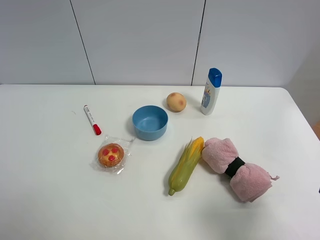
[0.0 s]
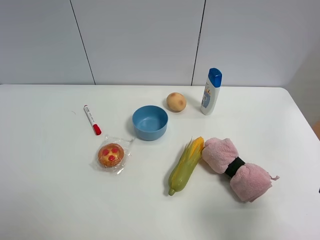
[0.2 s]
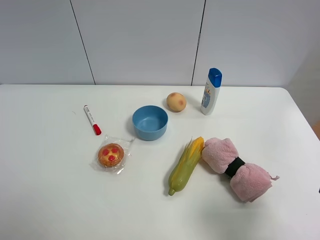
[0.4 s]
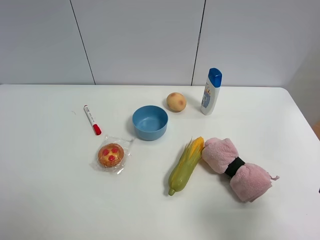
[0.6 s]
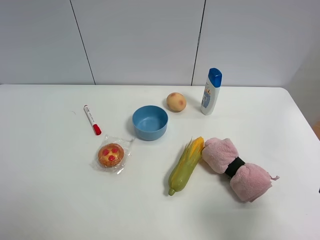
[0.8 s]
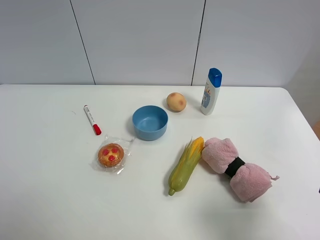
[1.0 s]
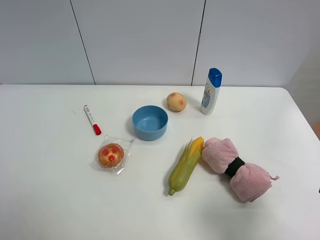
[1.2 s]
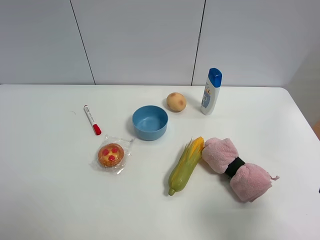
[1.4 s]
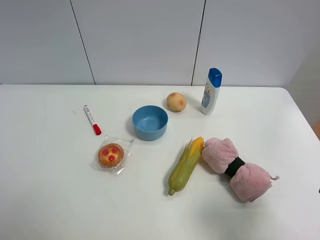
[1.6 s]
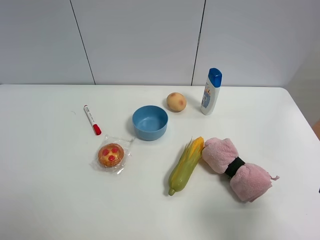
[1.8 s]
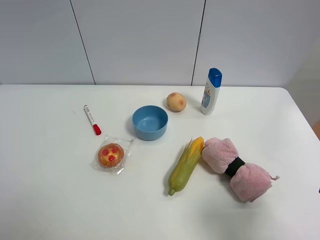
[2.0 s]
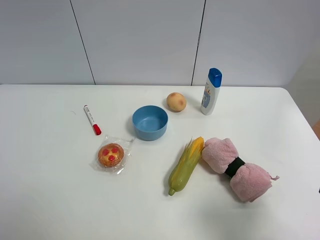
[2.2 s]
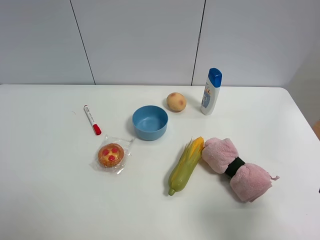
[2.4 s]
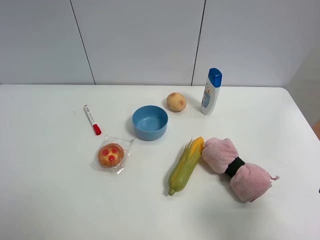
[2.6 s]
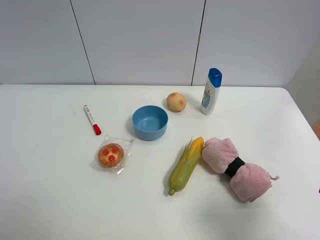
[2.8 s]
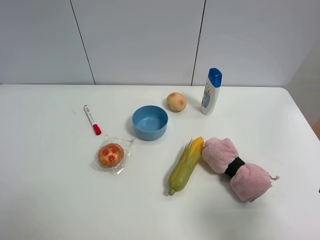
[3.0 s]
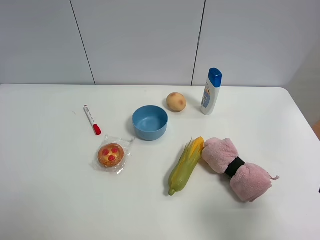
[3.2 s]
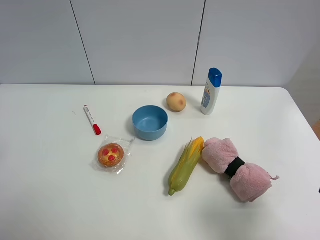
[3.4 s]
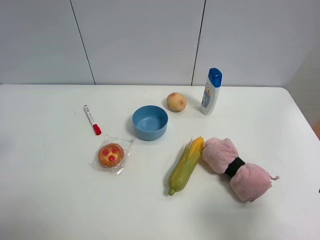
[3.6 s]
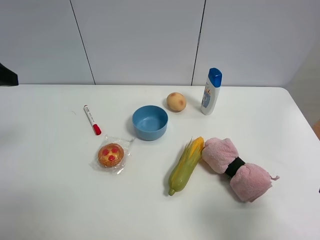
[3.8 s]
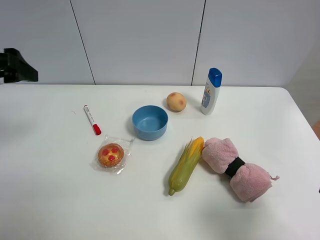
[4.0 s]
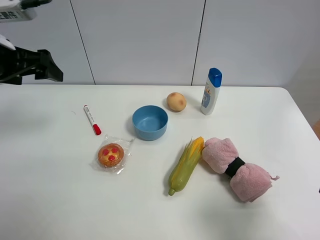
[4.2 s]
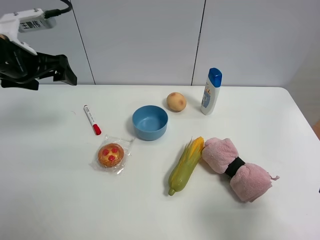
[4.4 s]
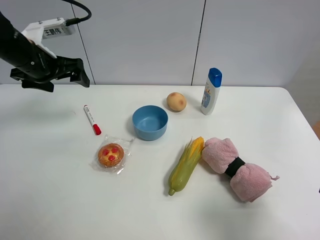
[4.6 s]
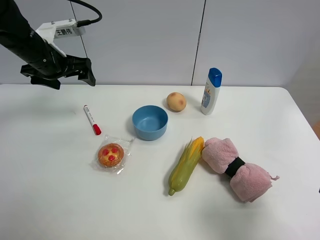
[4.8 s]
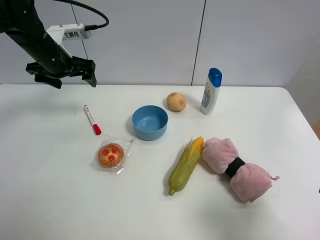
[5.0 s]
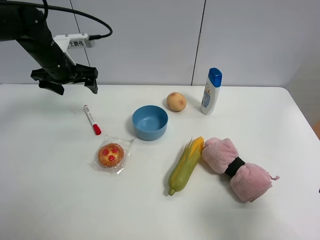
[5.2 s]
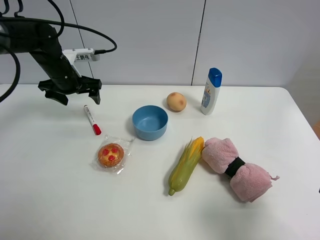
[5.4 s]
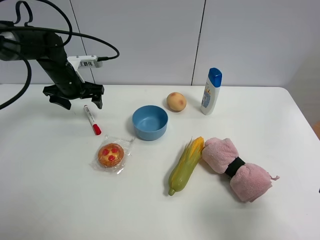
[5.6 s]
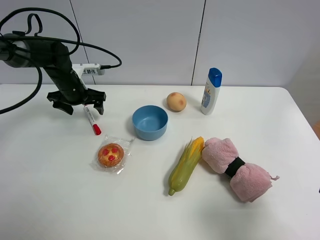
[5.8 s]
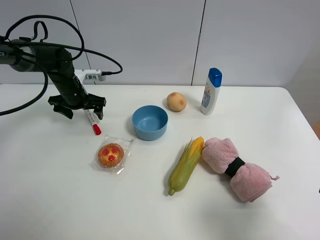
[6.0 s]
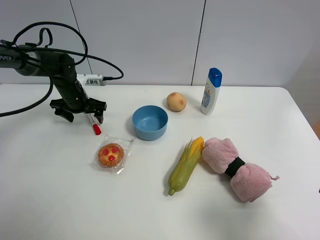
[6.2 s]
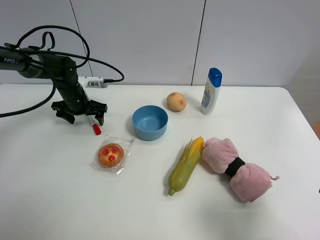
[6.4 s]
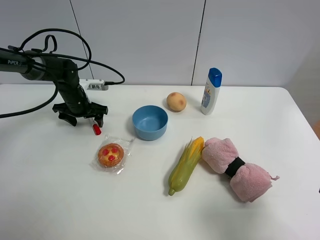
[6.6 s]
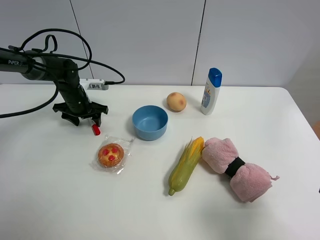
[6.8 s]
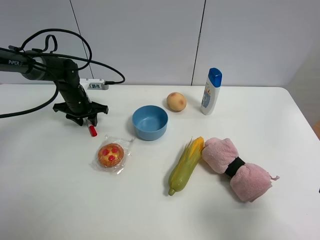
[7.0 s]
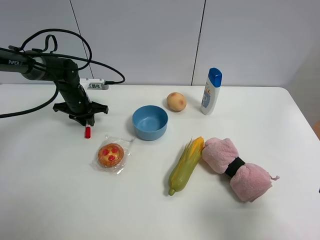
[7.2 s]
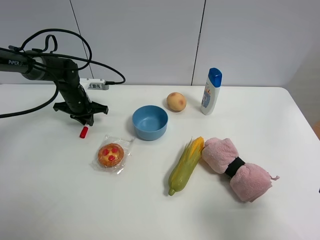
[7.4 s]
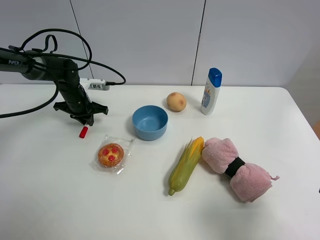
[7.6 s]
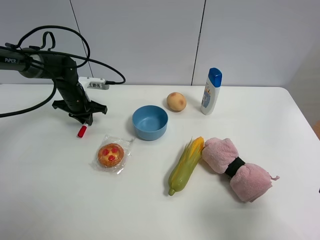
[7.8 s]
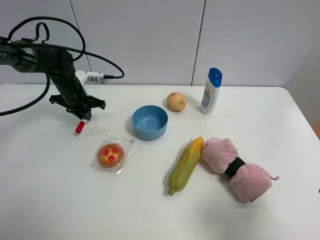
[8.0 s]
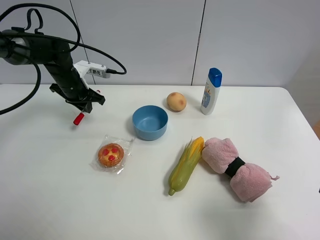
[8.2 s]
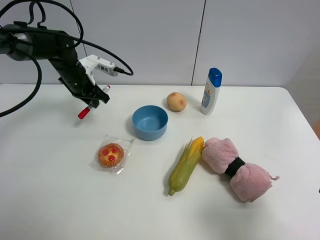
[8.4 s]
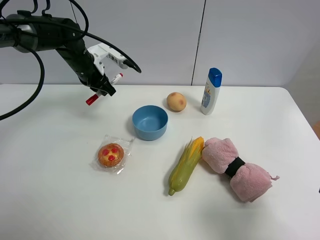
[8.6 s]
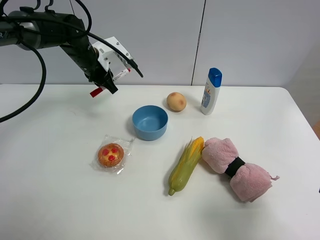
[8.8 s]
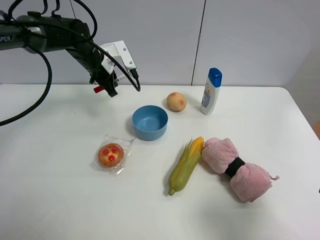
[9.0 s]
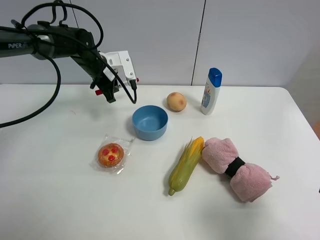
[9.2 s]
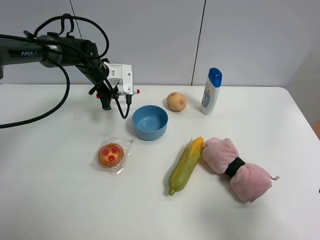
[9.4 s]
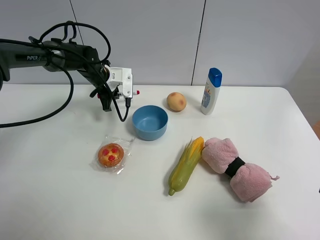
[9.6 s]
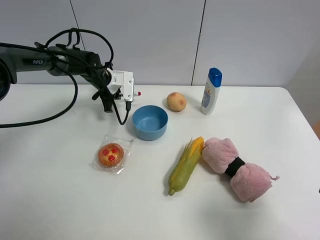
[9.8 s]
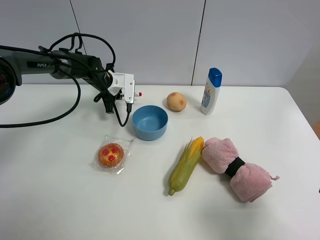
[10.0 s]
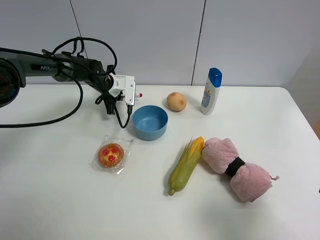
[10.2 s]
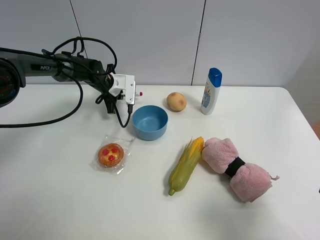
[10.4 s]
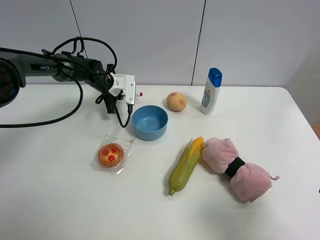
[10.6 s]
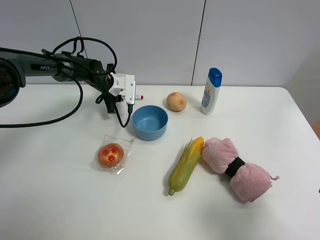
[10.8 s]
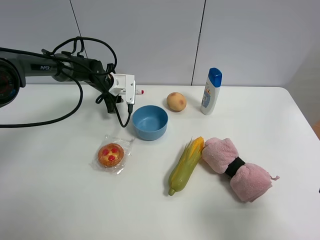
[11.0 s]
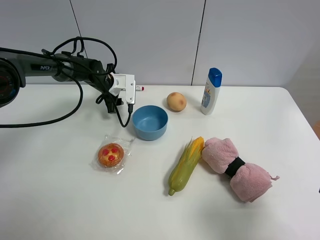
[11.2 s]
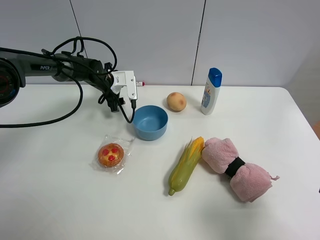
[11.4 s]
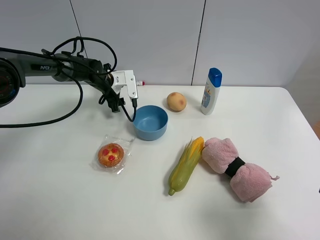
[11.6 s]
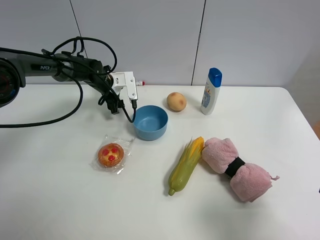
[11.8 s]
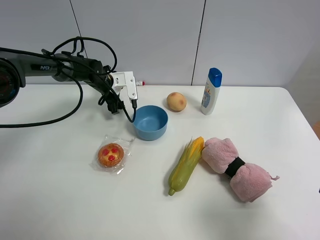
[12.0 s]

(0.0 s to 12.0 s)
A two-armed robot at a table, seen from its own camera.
Task of the whole recording: the gripper move the object.
Step, 0.0 s - 7.4 s: Grasp the red marker pen with the left gripper.
Step, 7.6 s - 10.6 s: Place the red marker pen on the table with the left gripper.
0.0 s - 1.6 s: Both grippers stay put.
3.0 s - 4.4 s: The left gripper travels forward by roughly 30 cm.
4.4 s - 6.0 s: The left gripper goes about 20 cm downward and forward.
6.0 s - 7.6 s: The left gripper closes its fingers.
7.6 s - 9.0 s: The left gripper moves upward and to the right, about 15 cm.
9.0 s - 10.4 s: The left gripper moves downward, approximately 10 cm.
10.4 s - 12.0 s: The left gripper opens its fingers.

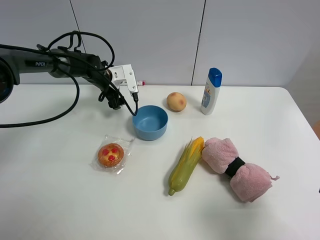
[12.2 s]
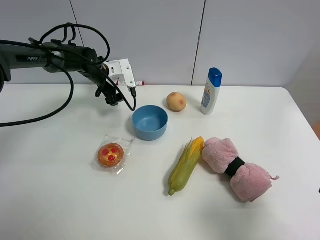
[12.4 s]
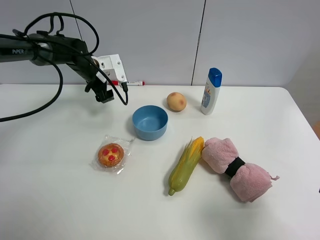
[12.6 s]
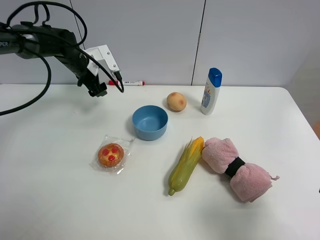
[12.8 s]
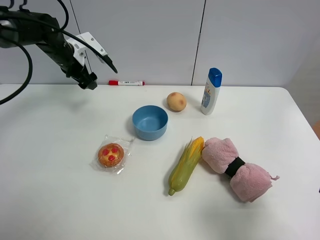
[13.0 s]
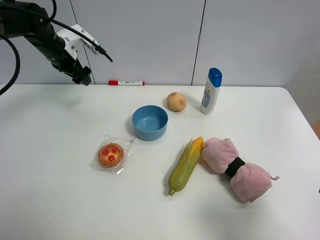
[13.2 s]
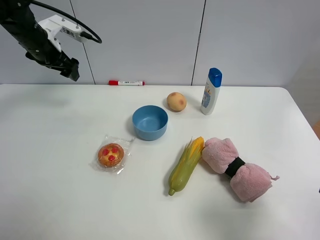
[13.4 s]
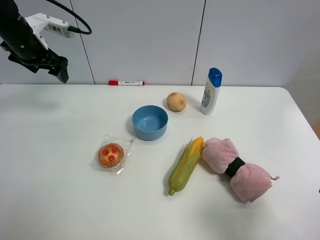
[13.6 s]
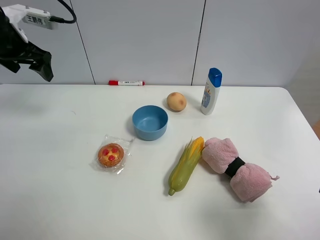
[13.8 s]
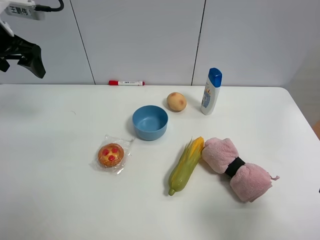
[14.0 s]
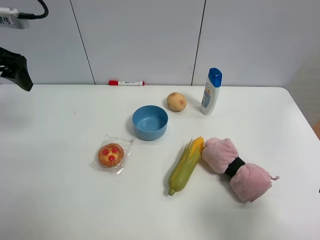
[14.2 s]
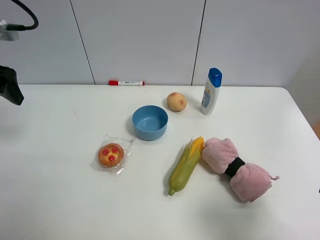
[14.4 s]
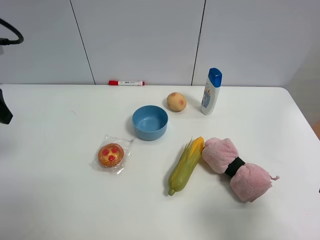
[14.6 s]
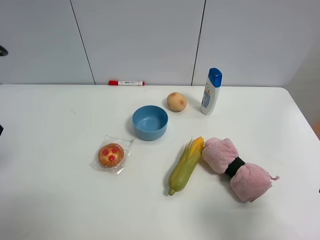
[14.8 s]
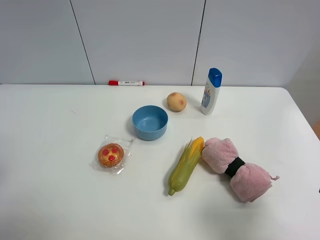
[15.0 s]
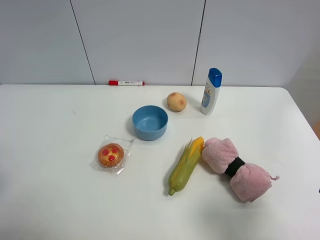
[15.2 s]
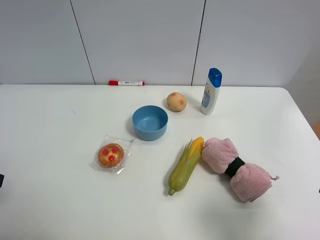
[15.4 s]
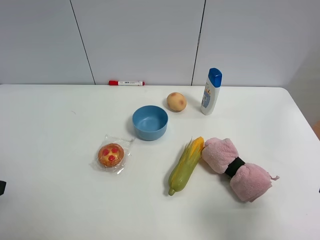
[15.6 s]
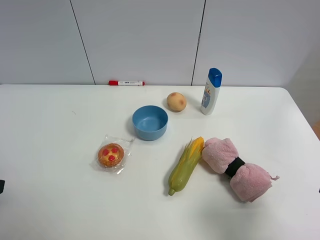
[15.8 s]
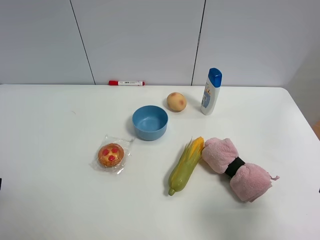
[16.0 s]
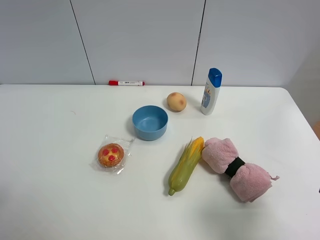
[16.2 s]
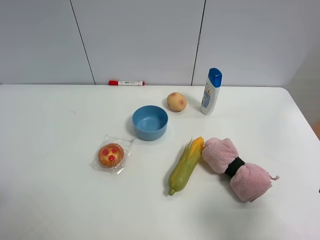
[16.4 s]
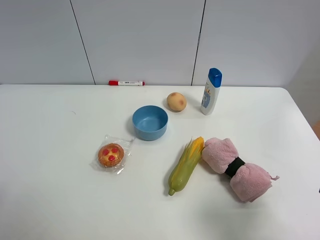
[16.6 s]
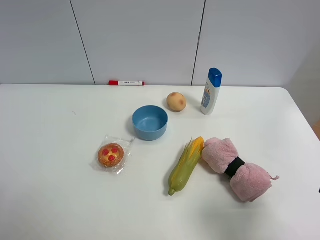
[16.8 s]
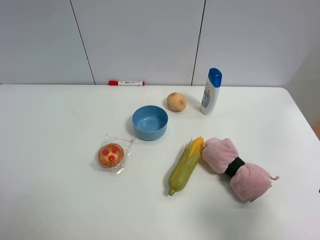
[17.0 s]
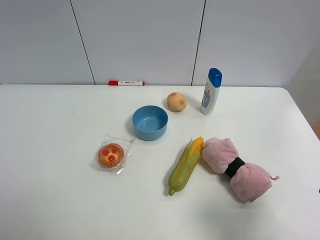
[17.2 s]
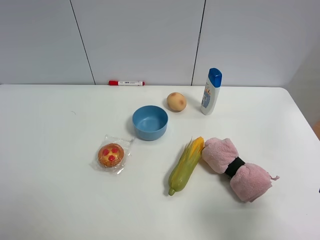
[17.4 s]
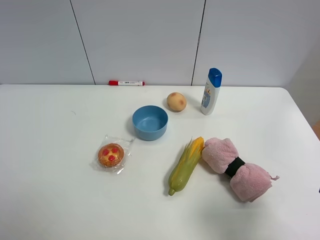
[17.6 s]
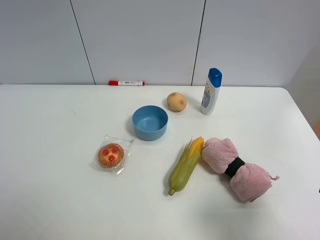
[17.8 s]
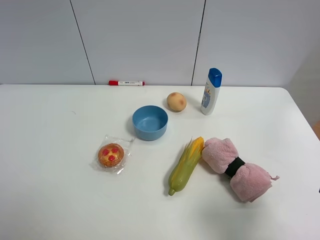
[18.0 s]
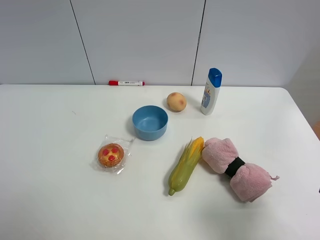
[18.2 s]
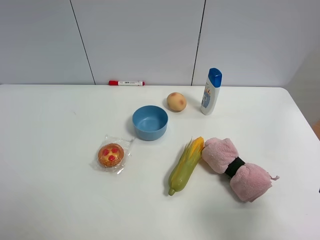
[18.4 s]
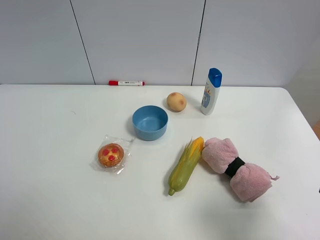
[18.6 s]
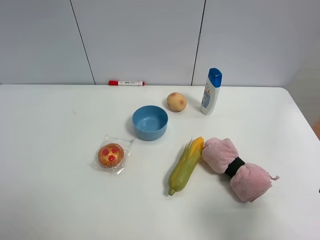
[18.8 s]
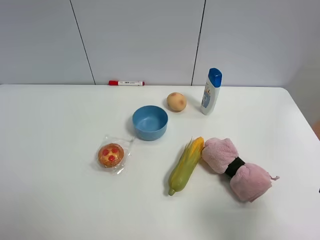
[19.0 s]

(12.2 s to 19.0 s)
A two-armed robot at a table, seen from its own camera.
Task of the whole recording: the gripper move the object.
12.2 s - 13.6 s: The left gripper moves upward, to the left and backward, about 20 cm.
13.6 s - 15.0 s: The left gripper moves backward, approximately 30 cm.
17.6 s - 19.0 s: Both grippers stay put.

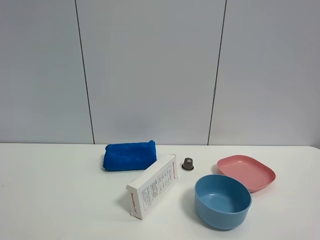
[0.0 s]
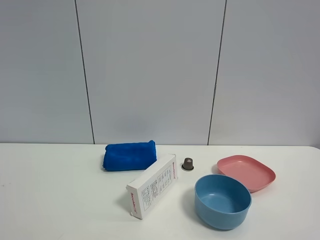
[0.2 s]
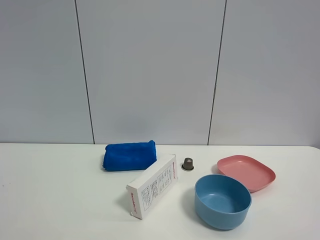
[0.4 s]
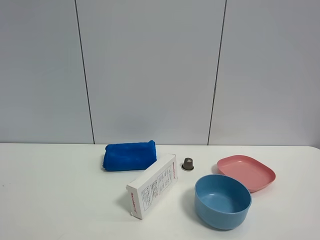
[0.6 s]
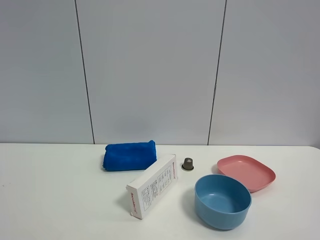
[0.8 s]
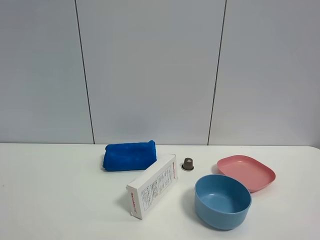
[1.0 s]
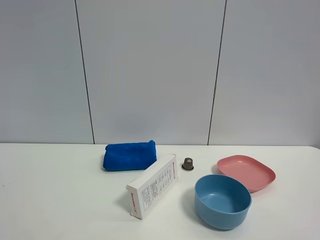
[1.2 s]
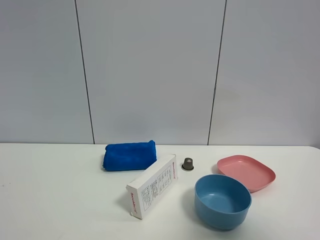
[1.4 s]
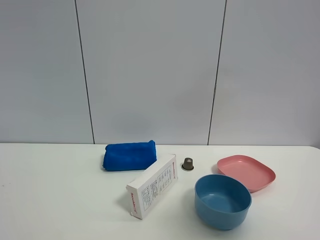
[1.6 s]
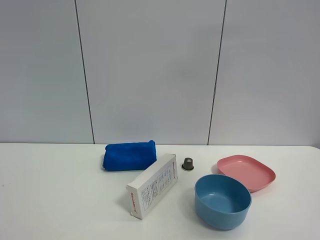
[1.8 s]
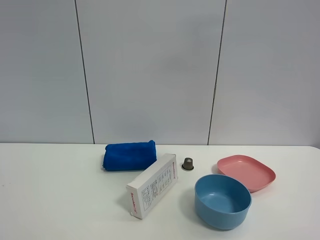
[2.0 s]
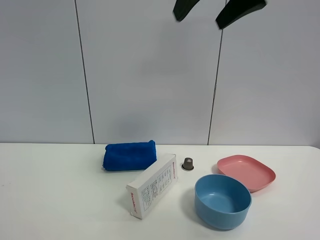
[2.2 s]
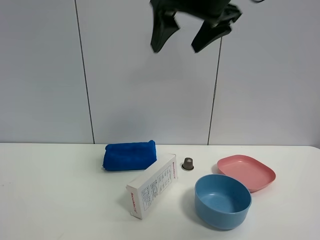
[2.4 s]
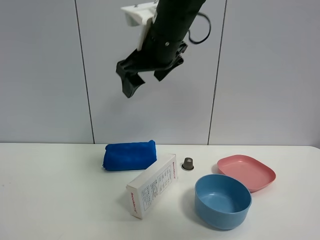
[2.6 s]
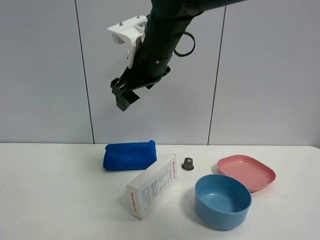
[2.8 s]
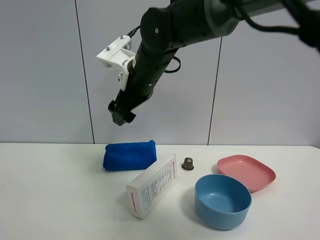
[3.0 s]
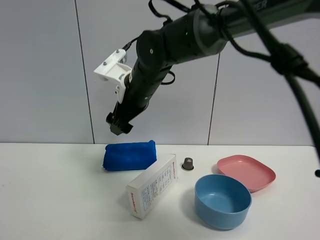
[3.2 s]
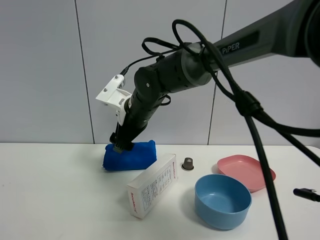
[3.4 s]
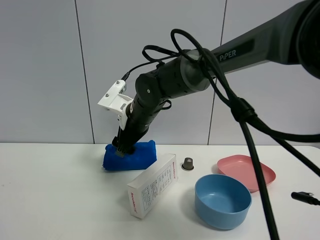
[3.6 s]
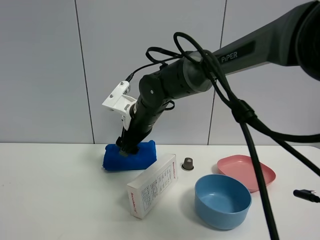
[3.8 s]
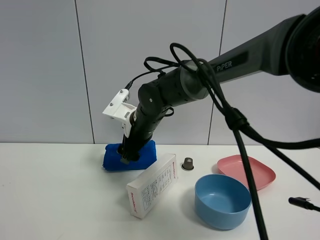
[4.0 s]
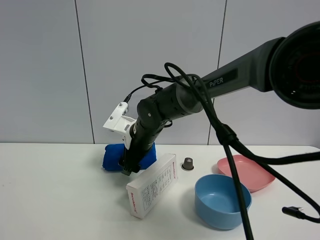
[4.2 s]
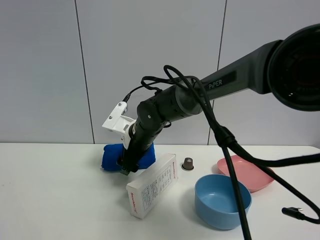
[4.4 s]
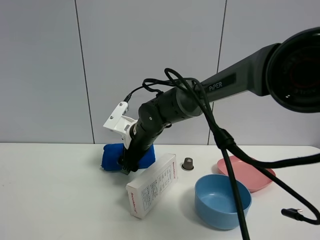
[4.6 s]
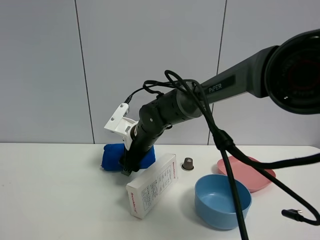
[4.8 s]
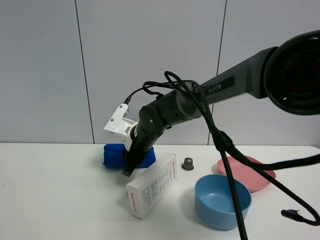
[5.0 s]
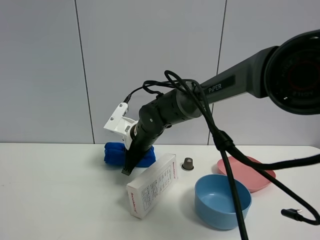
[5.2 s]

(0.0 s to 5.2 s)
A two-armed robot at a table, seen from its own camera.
Task of the whole recording: the gripper move the object.
Step, 0.0 s - 5.2 s: Grasp the blue towel with the right gripper.
0.0 s - 1.8 s: The right gripper shifts roughly 25 cm forward and upward.
1.8 s - 3.4 s: The right gripper moves downward, to the left and forward, roughly 40 cm.
3.4 s - 5.2 s: The right gripper heads downward, covering approximately 5 cm, and closes up.
